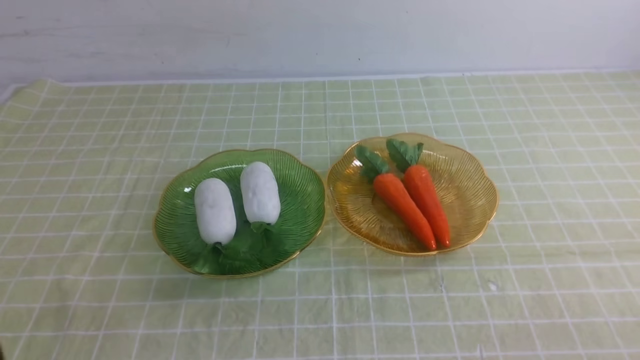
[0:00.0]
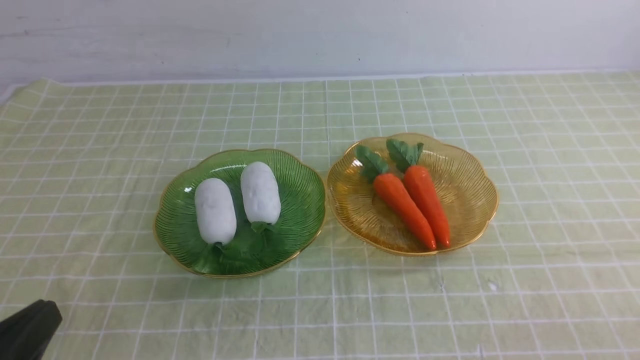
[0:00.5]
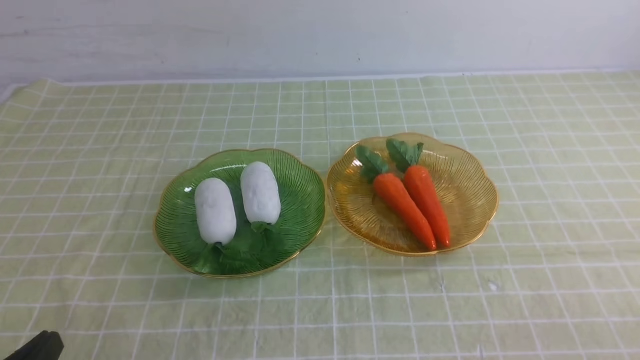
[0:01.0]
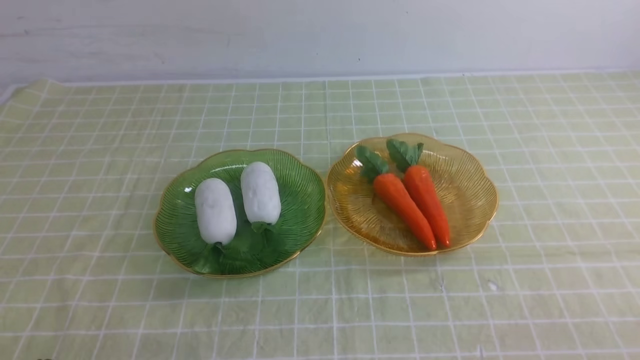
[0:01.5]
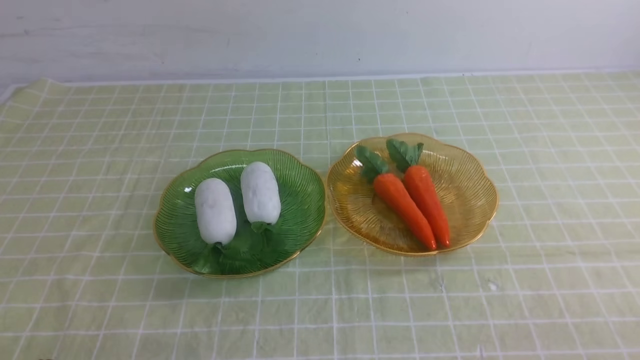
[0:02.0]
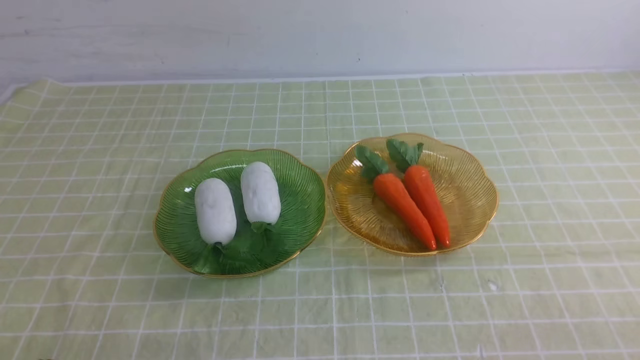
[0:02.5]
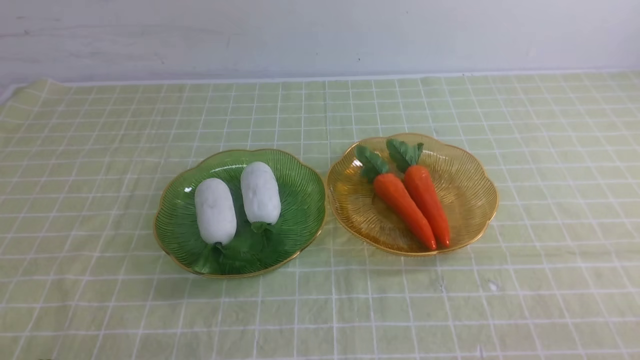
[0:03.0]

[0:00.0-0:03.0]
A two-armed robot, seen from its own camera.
0:01.5 to 0:03.0: The two grippers keep their place.
